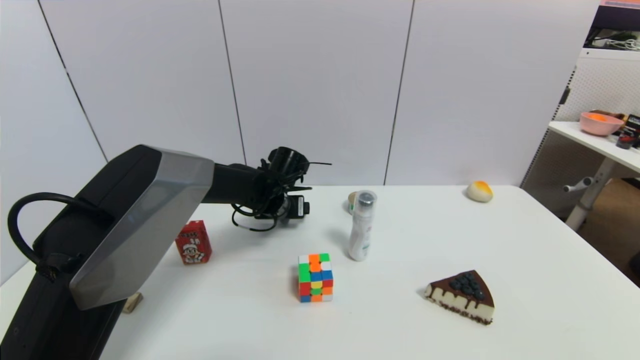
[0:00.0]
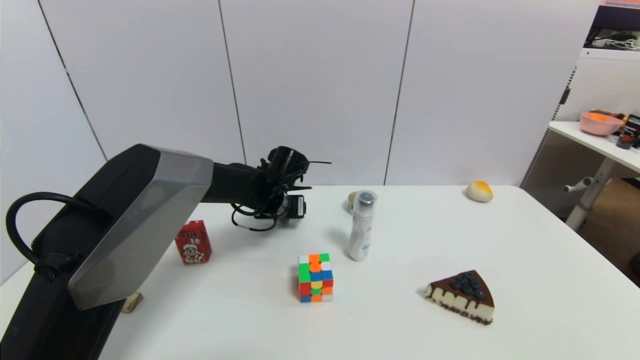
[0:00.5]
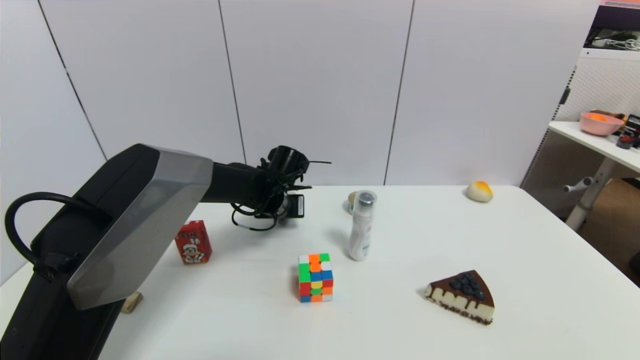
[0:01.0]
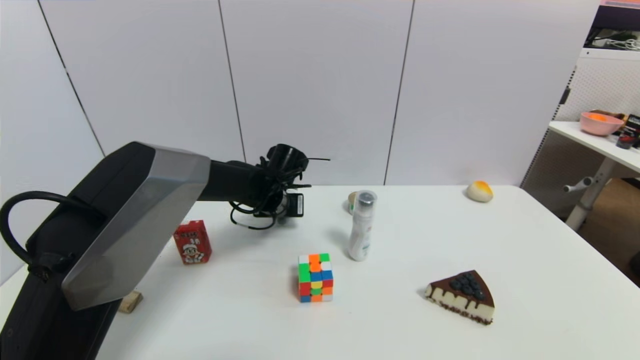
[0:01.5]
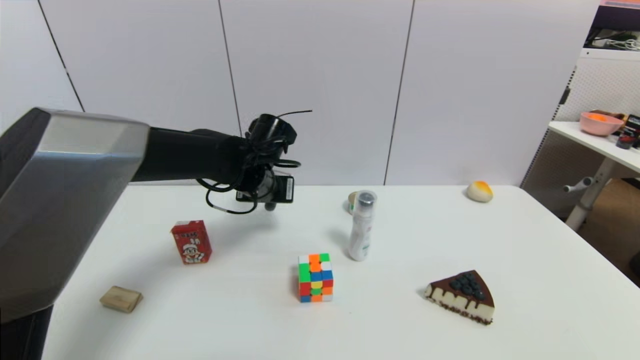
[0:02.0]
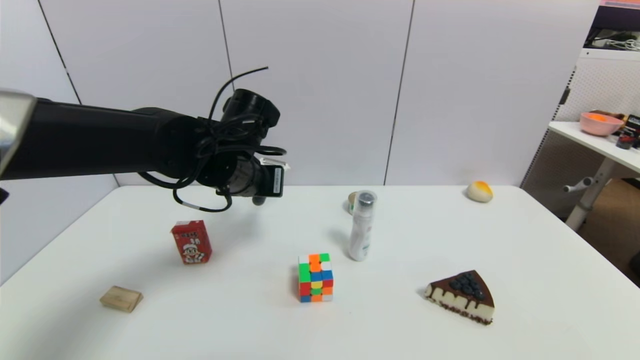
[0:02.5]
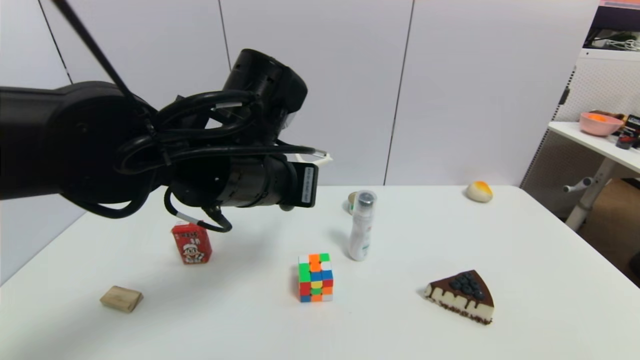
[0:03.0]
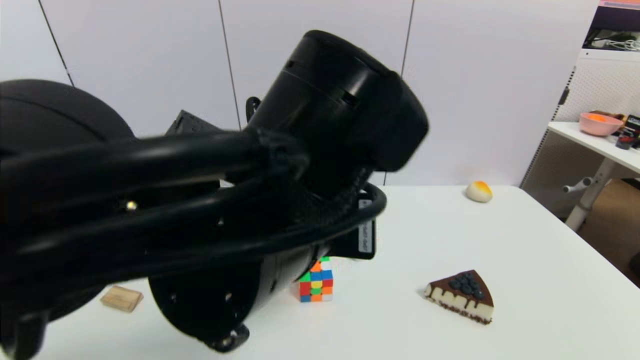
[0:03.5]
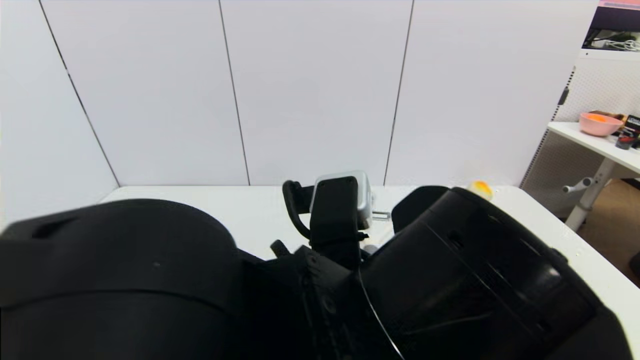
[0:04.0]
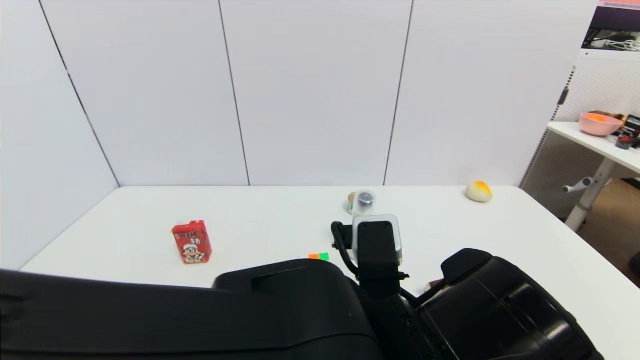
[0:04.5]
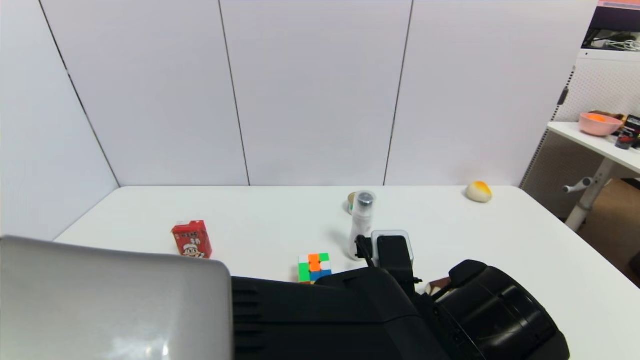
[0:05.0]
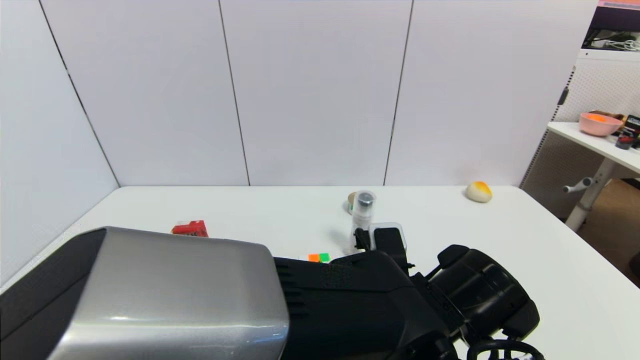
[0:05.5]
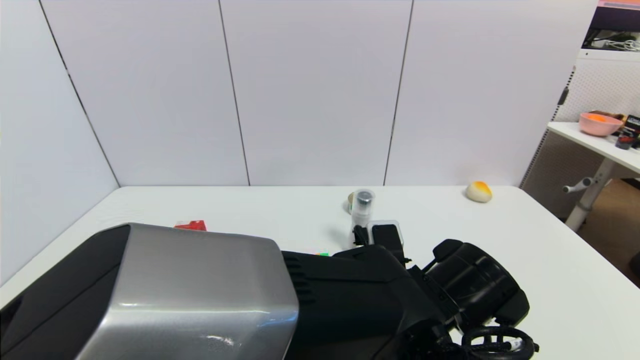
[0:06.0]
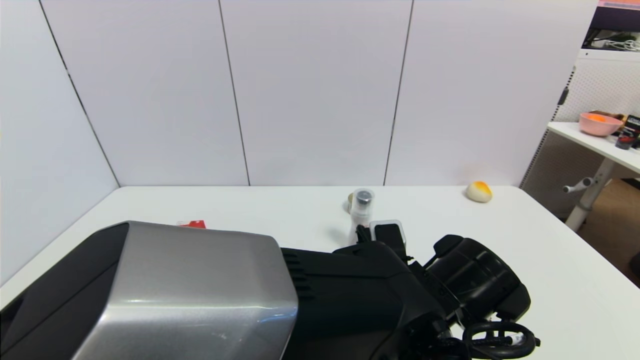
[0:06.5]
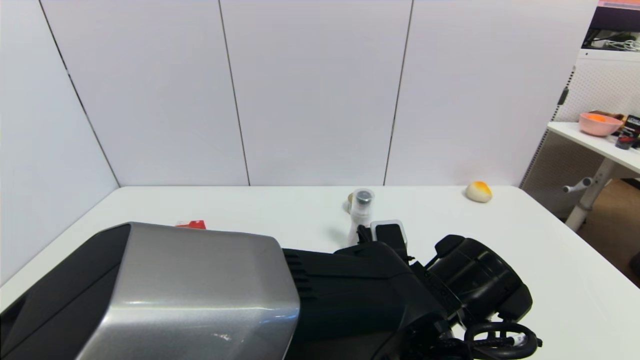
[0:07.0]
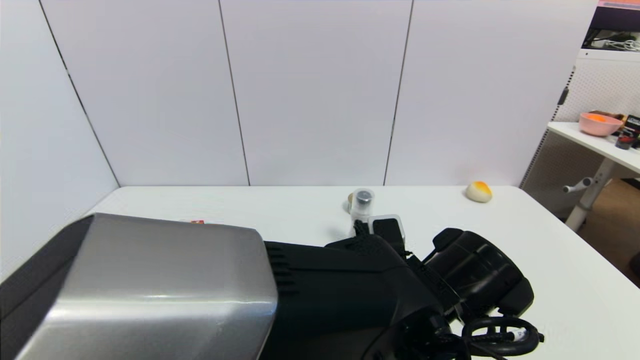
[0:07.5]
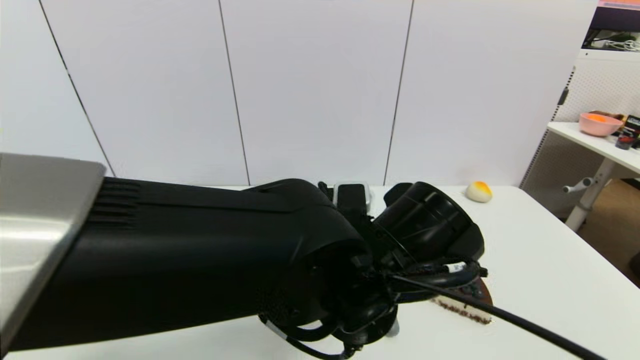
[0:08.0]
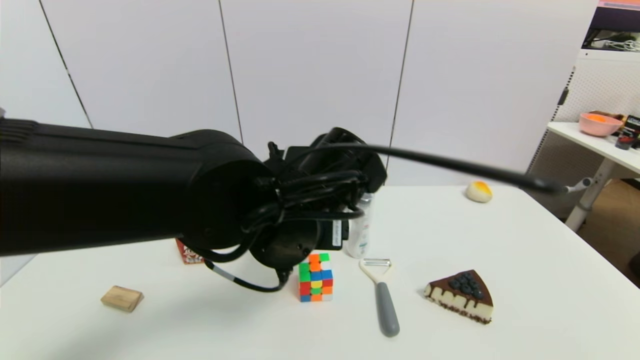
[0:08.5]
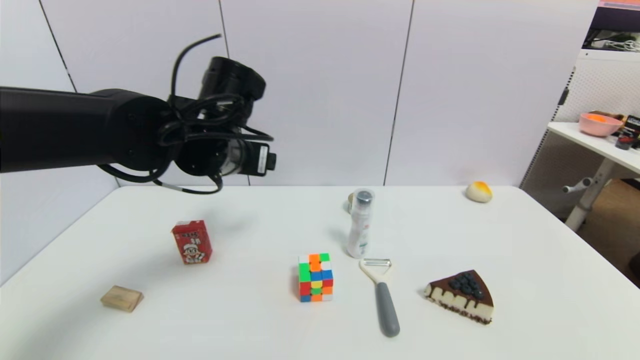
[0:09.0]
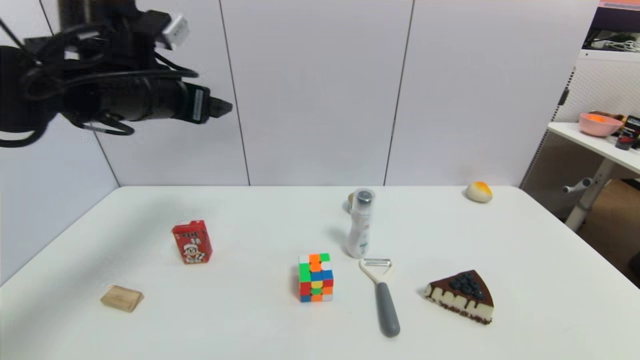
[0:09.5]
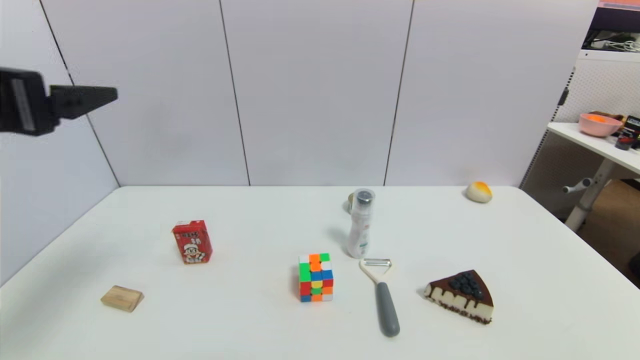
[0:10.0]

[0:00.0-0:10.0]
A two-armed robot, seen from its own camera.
Step, 0:02.0 to 0:07.0: Place the peeler on the table with left gripper.
0:00.0 to 0:02.0: The left gripper shifts approximately 10 cm upward, and closes.
0:02.0 to 0:04.0: The left gripper shifts some 30 cm backward.
0:04.0 to 0:06.0: The left gripper heads downward, to the right and forward, covering roughly 15 cm.
0:06.0 to 0:08.0: The left gripper is displaced upward and to the left by some 10 cm, and opens up.
0:08.0 to 0:10.0: The left gripper moves to the left and upward, about 35 cm.

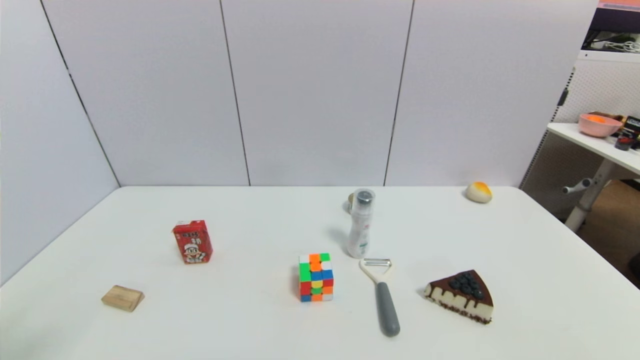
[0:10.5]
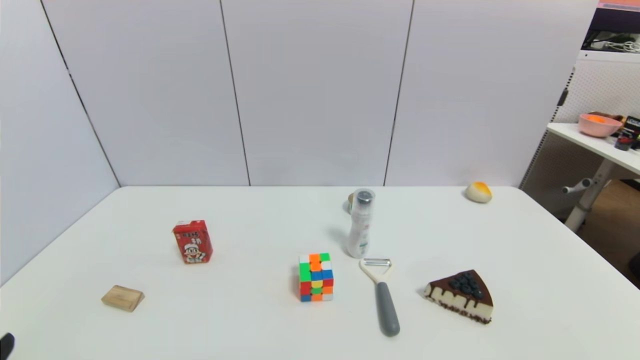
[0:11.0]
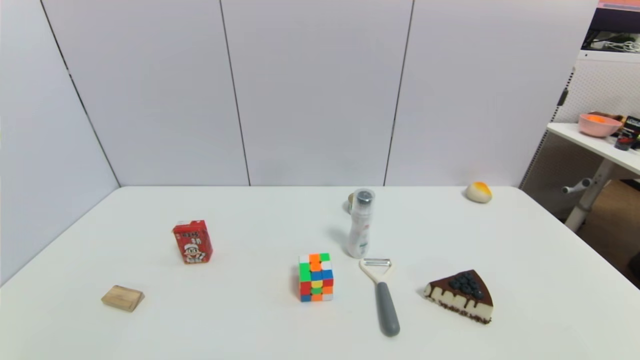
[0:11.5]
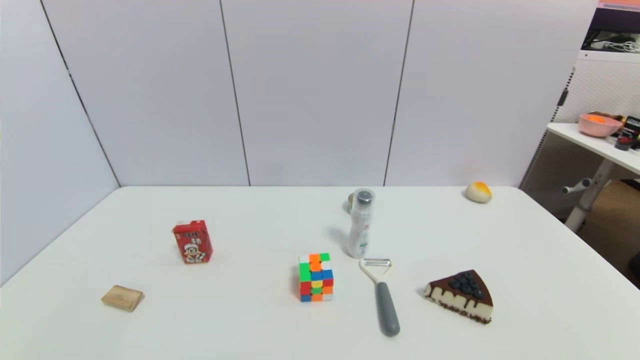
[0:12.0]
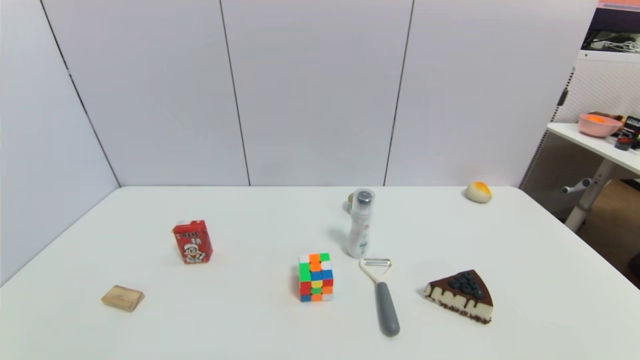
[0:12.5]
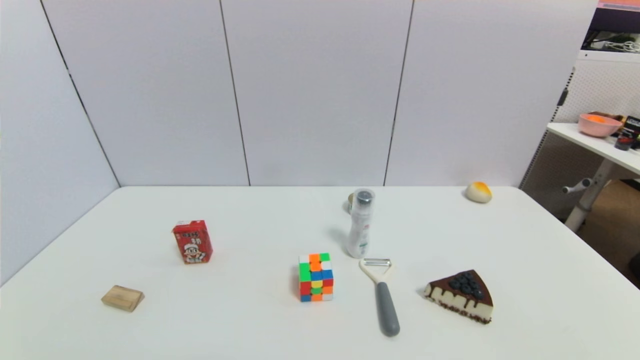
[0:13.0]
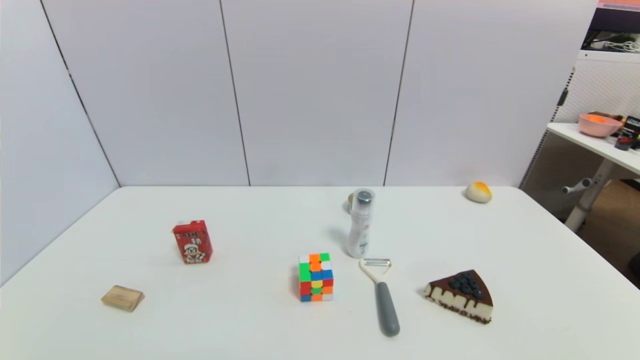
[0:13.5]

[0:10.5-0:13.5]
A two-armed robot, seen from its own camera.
0:12.0 to 0:13.5: The two grippers keep their place.

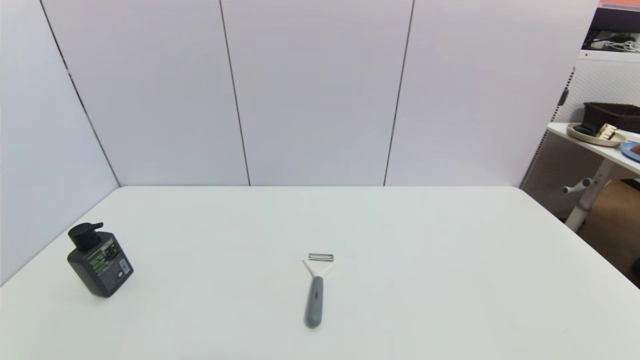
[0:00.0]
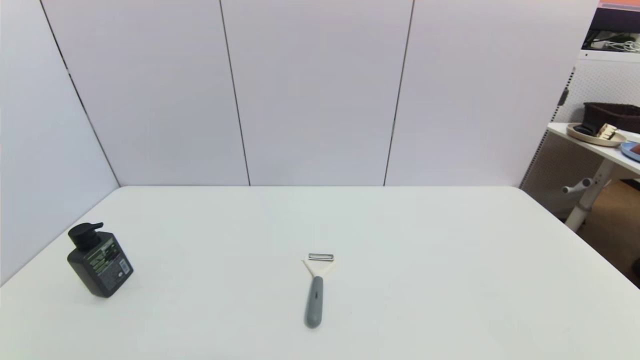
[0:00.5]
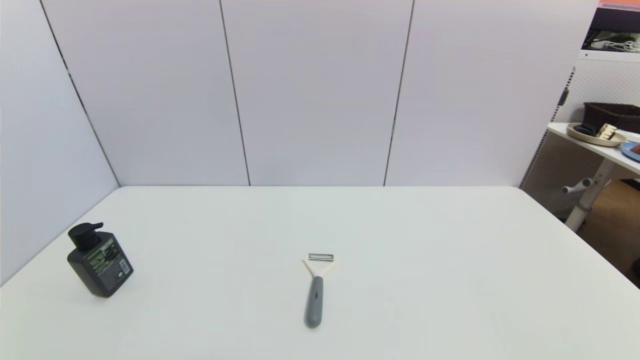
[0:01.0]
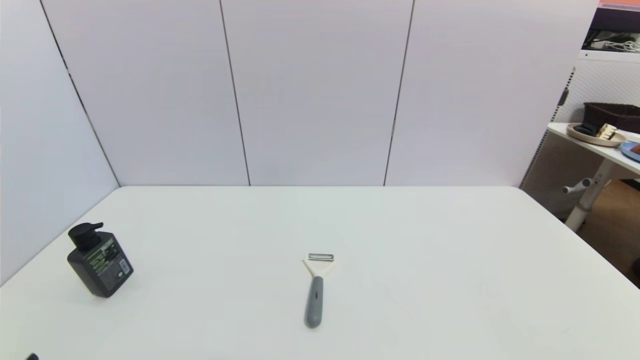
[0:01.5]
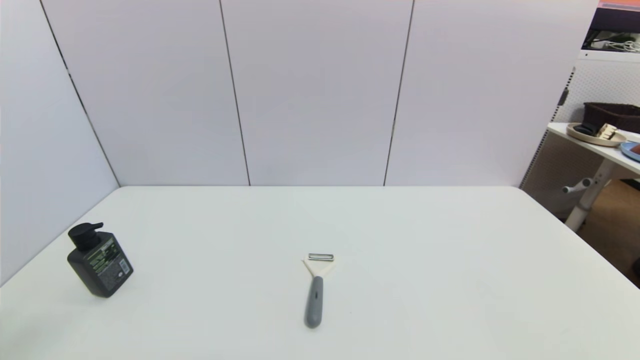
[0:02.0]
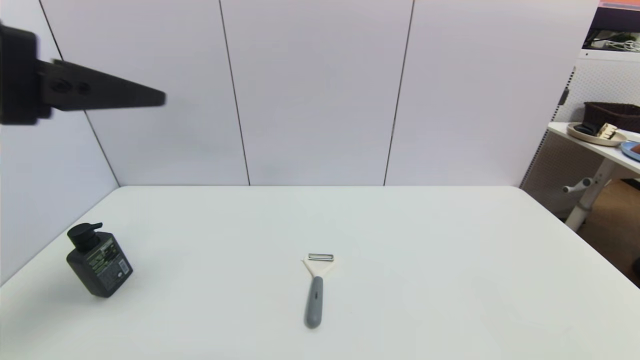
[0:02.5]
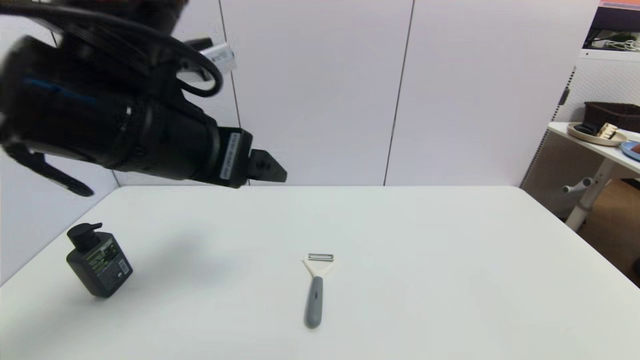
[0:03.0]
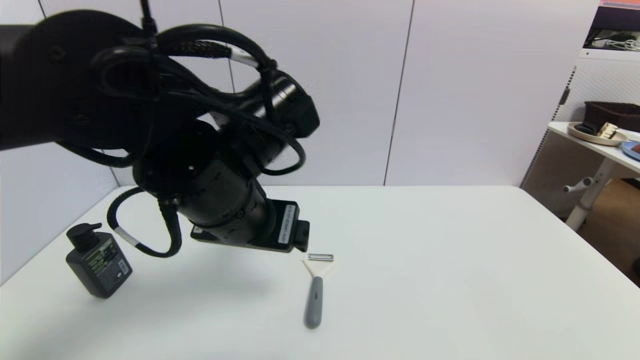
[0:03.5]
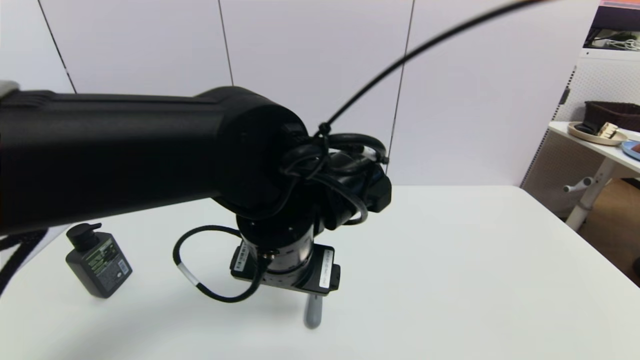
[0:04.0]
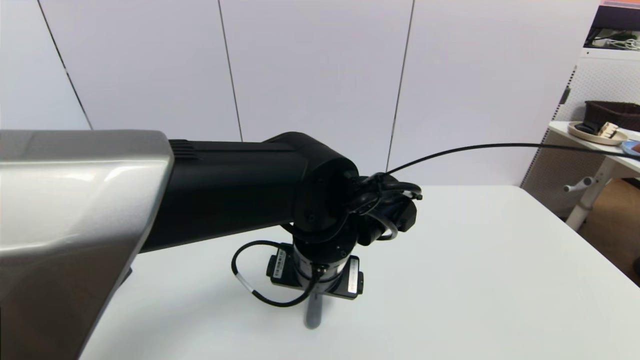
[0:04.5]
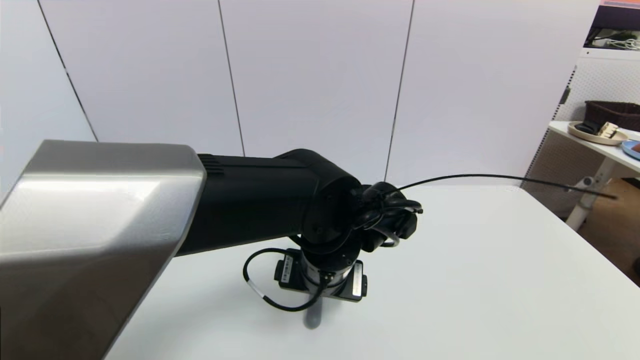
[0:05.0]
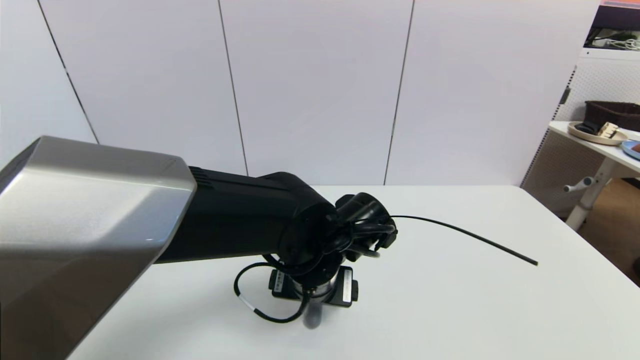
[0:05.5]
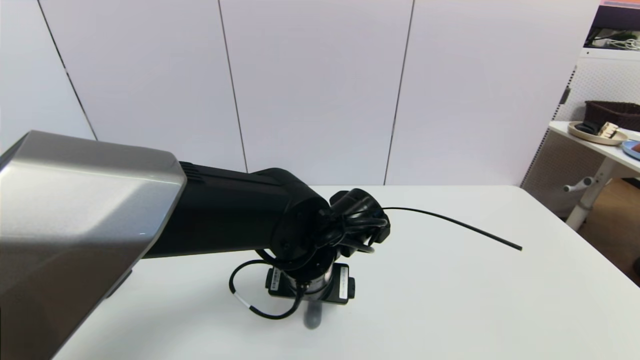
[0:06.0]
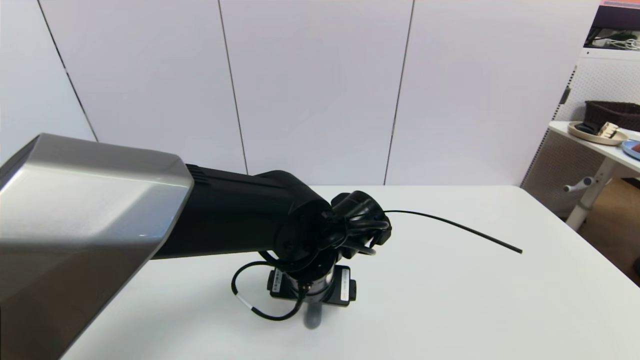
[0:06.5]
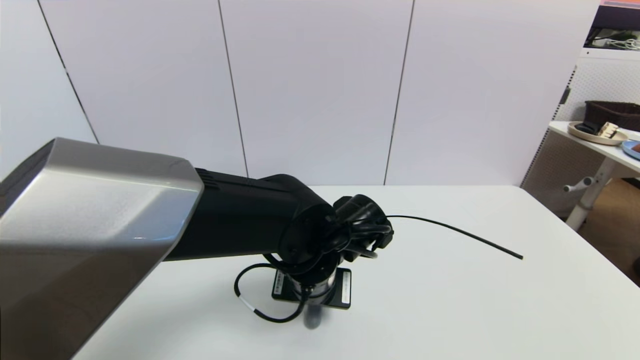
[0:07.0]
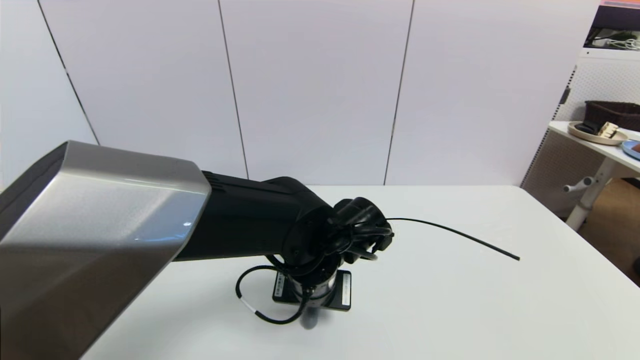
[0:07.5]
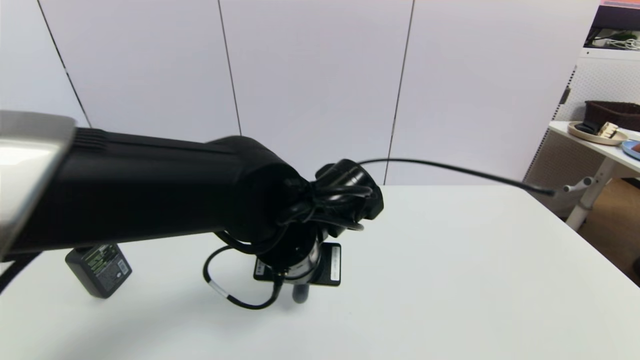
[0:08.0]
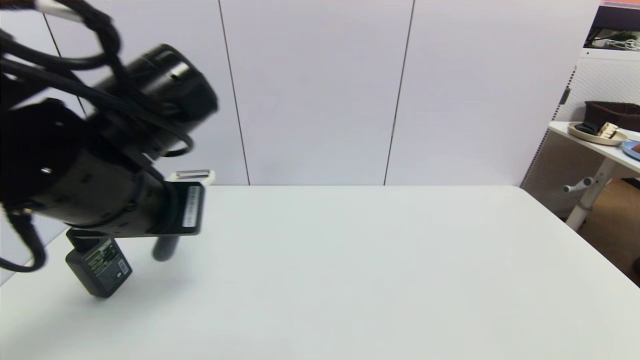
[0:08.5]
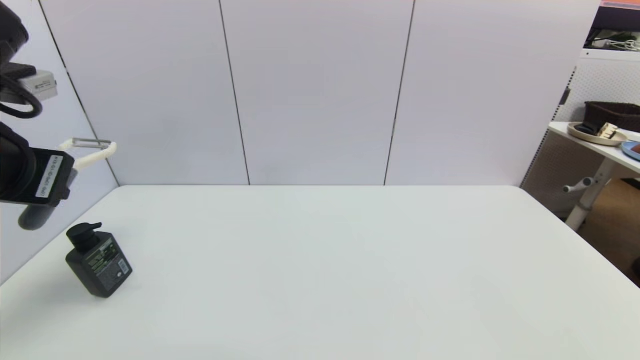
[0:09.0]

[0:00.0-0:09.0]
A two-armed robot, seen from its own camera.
Step, 0:02.5 to 0:07.5: Grasp the peeler with left gripper.
0:02.0 to 0:04.5: The left gripper is displaced to the right, forward and downward by roughly 40 cm.
0:04.5 to 0:07.0: The left gripper closes.
0:07.0 to 0:09.0: The left gripper is displaced to the left and upward by roughly 30 cm, and closes up.
